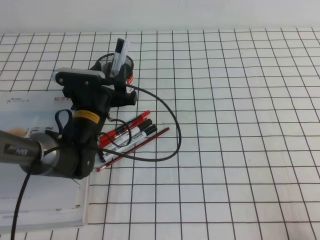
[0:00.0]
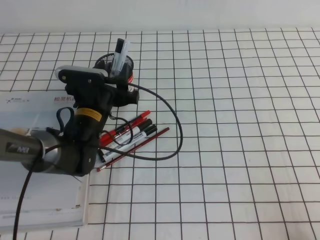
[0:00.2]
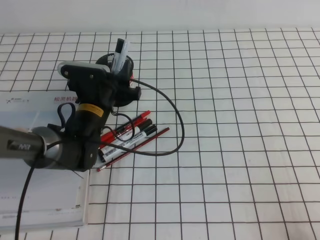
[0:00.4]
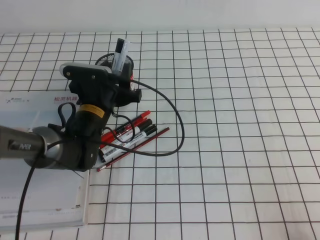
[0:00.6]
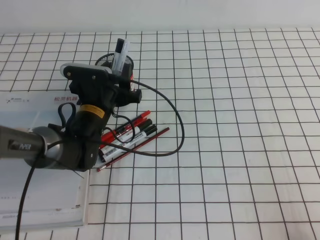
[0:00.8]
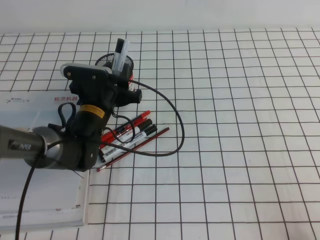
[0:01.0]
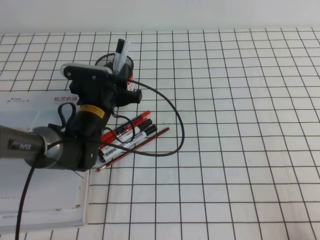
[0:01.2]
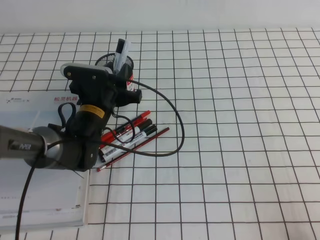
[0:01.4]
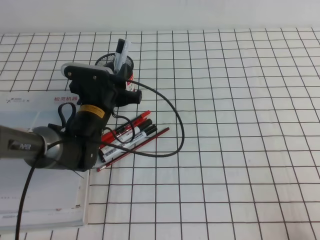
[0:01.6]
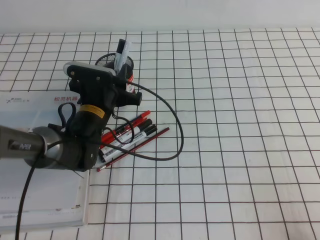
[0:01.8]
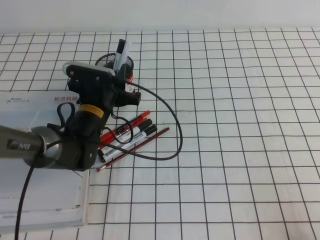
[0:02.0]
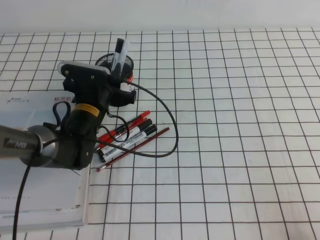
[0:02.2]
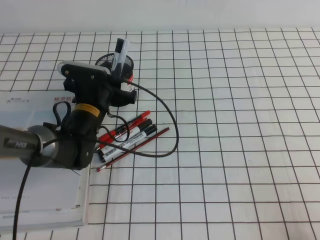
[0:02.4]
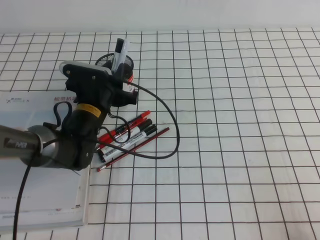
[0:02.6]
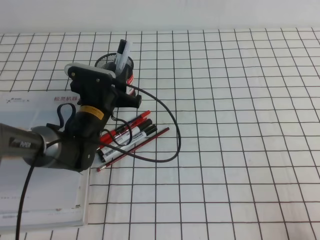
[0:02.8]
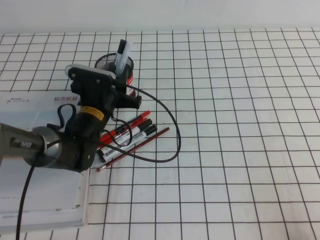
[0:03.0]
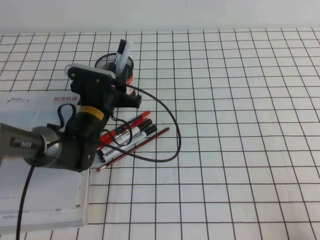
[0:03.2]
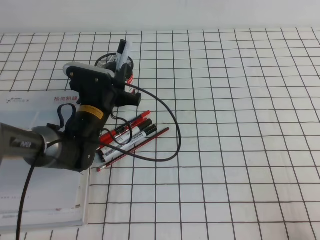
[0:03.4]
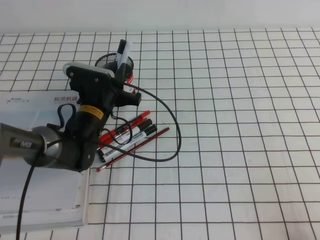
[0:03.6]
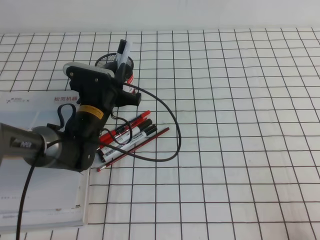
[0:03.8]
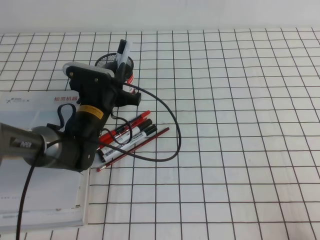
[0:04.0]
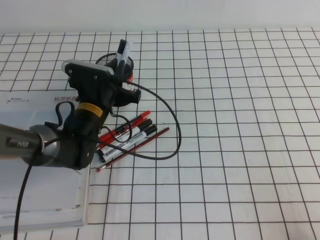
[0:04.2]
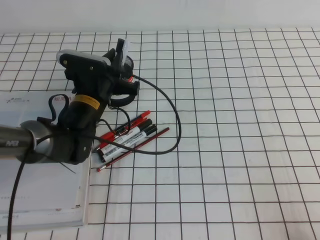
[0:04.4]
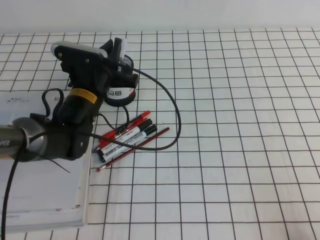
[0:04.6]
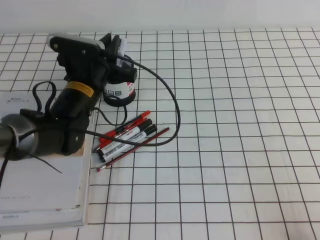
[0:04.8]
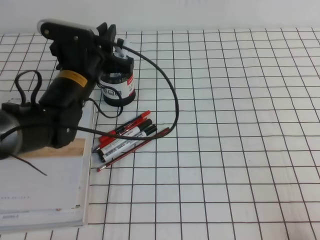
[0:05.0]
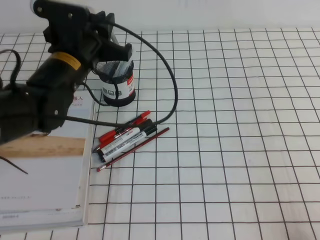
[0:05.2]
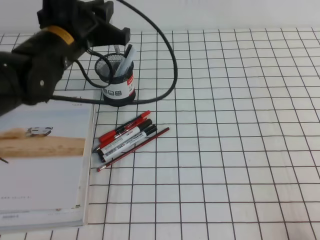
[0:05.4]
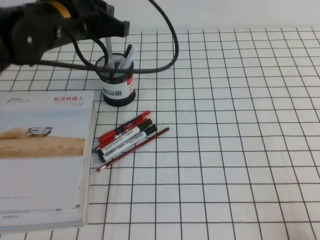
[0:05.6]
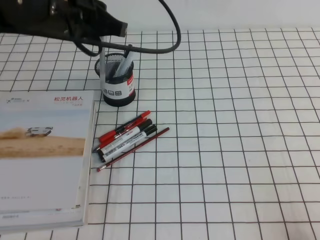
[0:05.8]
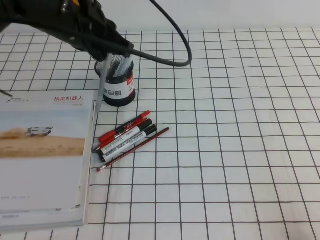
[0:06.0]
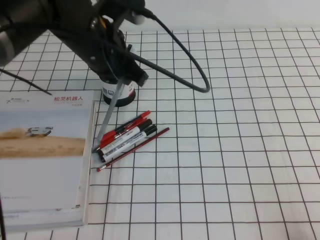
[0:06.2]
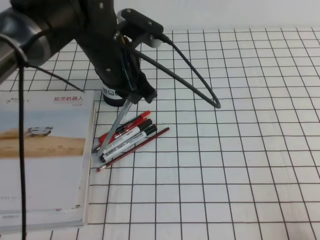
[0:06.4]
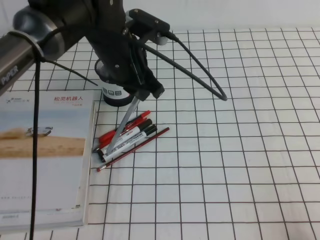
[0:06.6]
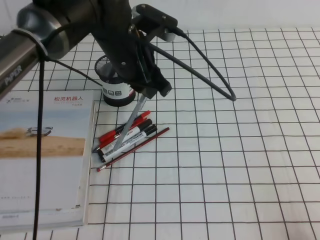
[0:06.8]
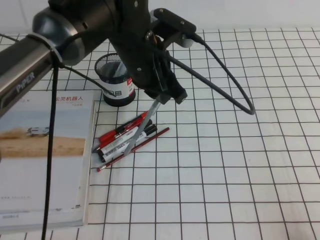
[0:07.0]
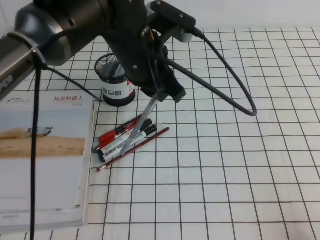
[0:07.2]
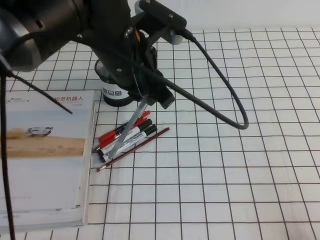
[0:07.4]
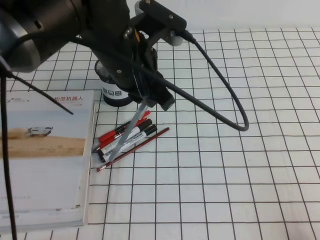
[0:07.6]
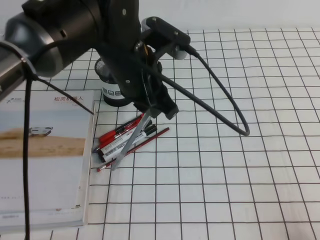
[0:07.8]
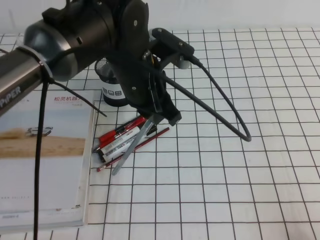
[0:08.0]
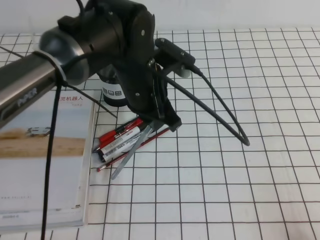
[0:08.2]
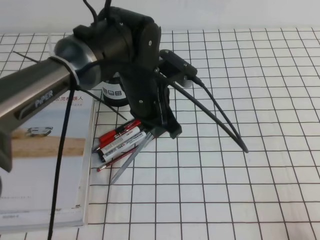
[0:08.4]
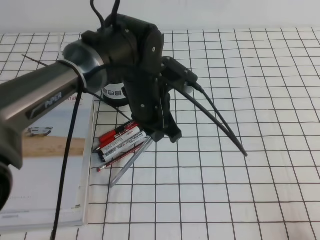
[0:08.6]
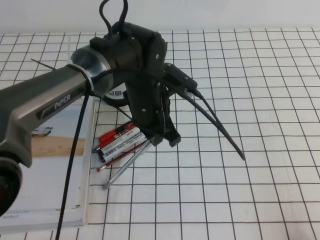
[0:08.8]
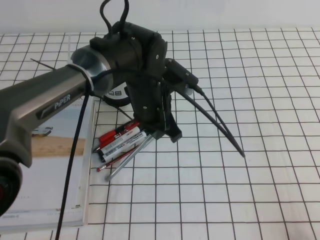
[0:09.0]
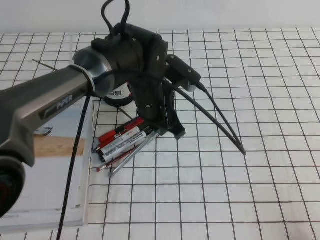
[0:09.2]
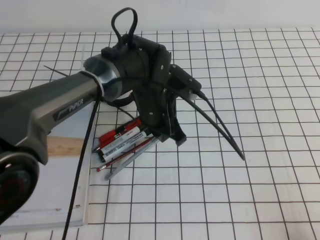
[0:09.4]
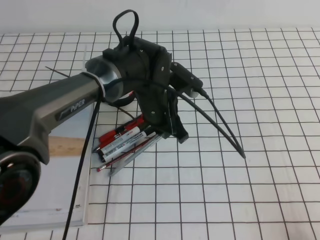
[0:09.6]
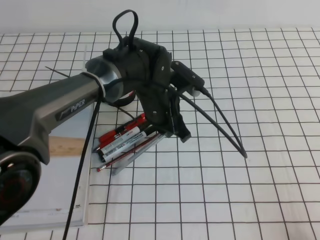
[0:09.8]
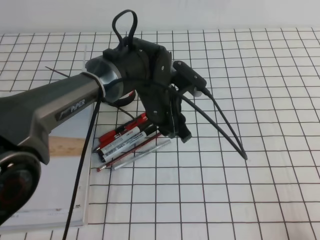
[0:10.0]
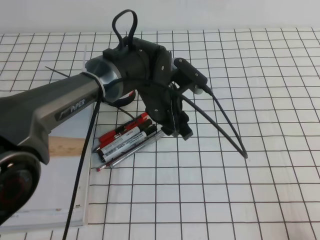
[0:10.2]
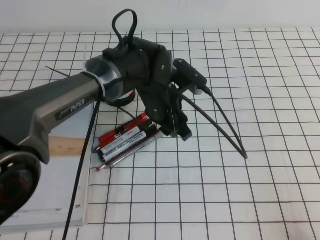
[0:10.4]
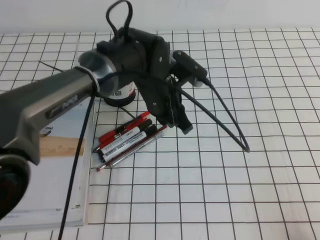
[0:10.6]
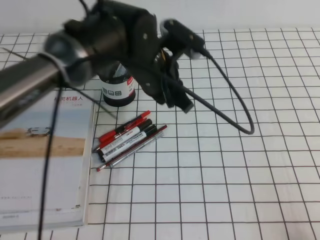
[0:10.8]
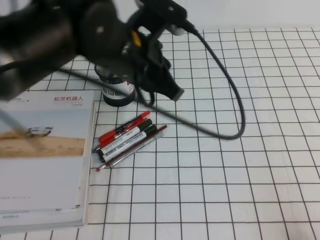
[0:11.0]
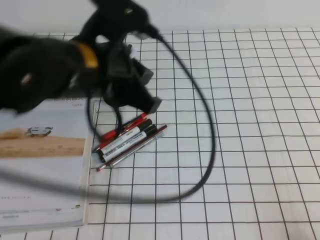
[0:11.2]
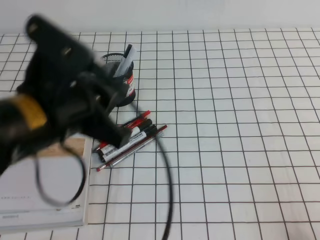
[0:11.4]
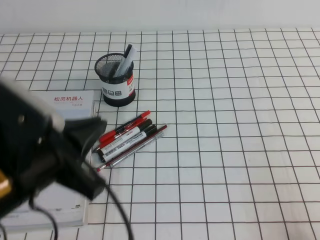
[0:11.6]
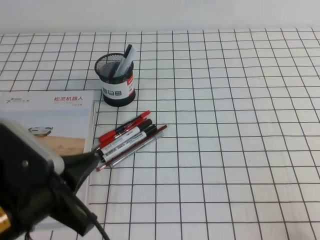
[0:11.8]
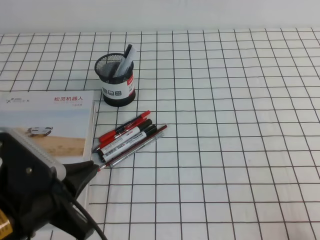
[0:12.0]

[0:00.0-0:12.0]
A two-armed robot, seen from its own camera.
0:00.0 to 0:01.6: The left gripper closes up.
0:01.6 to 0:03.0: Both grippers stay about where they are.
0:03.0 to 0:04.4: The grippers stay close to where they were, moving slightly.
0:04.4 to 0:06.0: The left gripper shifts about 20 cm upward.
0:06.0 to 0:07.6: The left gripper is displaced to the right by about 5 cm.
0:07.6 to 0:09.0: The left gripper moves downward, roughly 10 cm.
0:09.0 to 0:10.4: The left gripper opens its fingers.
0:10.4 to 0:12.0: The left gripper travels backward and to the left by some 30 cm, and closes.

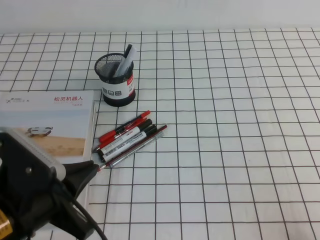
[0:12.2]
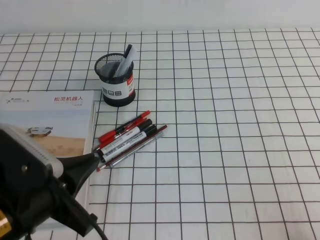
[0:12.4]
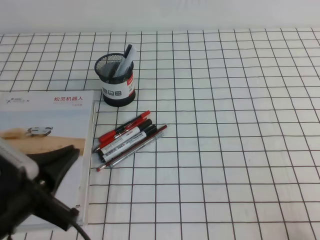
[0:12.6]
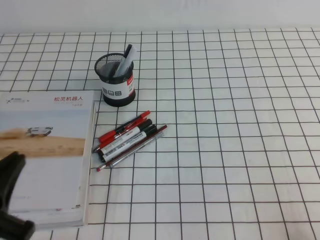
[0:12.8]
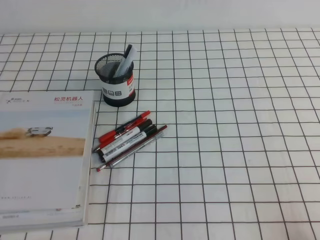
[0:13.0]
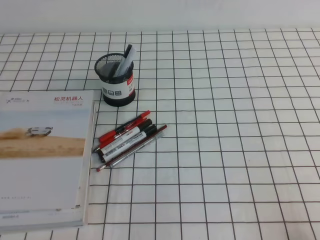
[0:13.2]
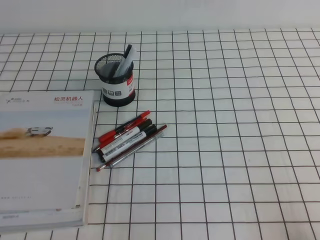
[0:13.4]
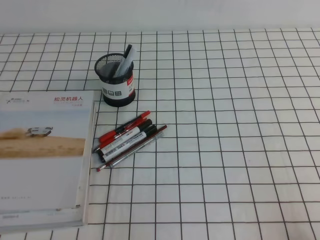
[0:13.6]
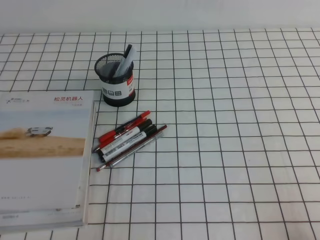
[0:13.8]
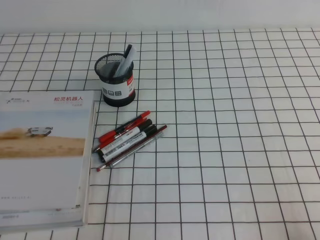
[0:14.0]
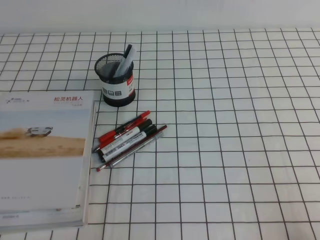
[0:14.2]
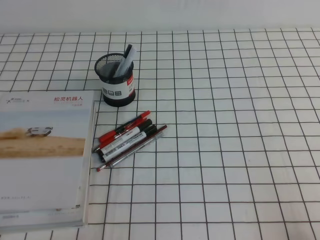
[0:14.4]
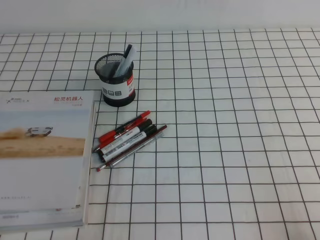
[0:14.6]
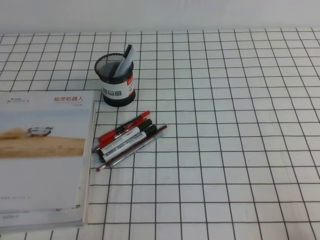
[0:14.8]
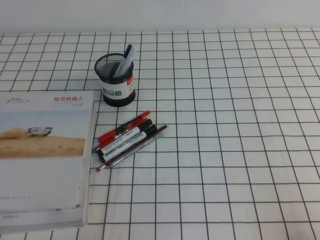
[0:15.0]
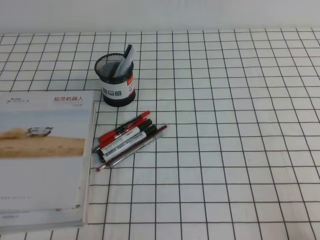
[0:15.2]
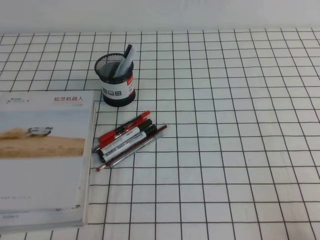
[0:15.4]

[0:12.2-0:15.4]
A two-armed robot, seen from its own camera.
Step, 0:12.2 to 0:15.4: Pick up the pen from the pen holder.
0:12.2 to 0:13.8: The left gripper goes approximately 15 cm to the left, downward and backward.

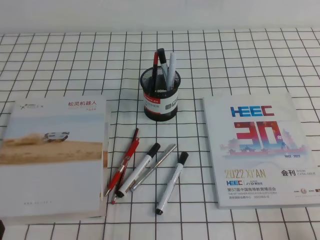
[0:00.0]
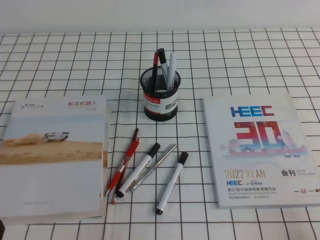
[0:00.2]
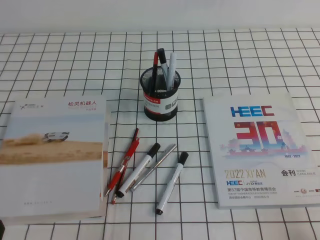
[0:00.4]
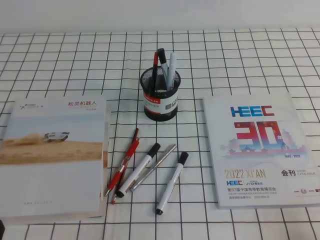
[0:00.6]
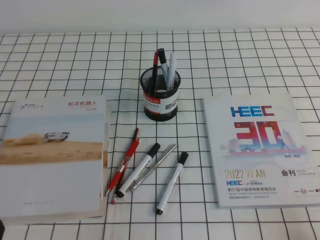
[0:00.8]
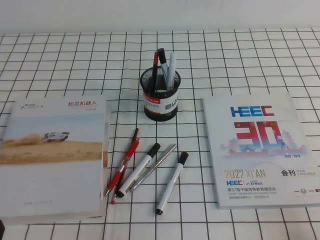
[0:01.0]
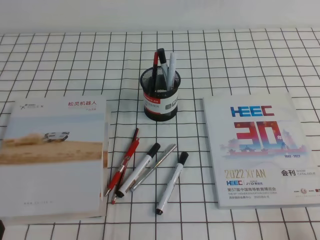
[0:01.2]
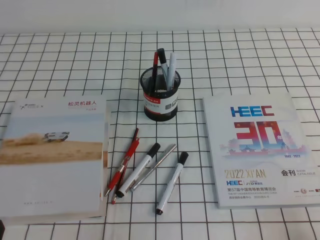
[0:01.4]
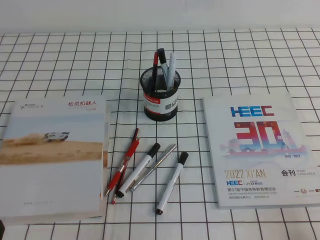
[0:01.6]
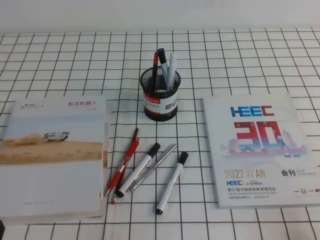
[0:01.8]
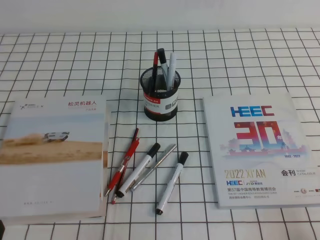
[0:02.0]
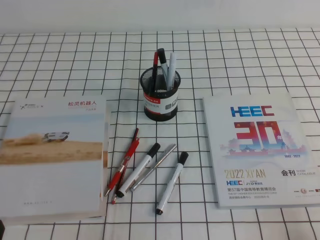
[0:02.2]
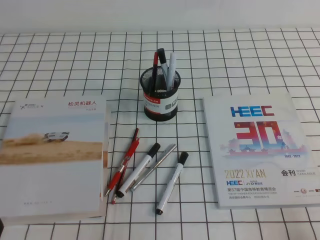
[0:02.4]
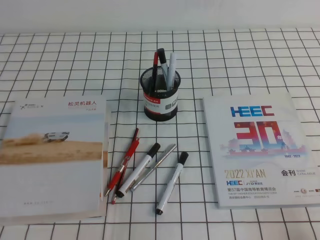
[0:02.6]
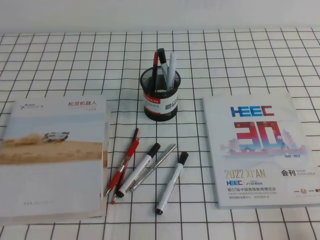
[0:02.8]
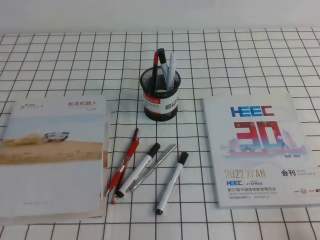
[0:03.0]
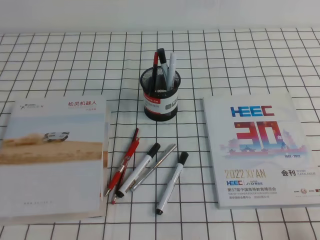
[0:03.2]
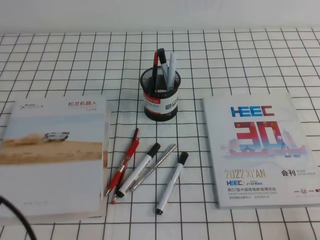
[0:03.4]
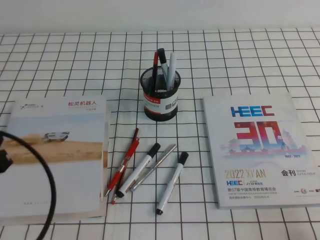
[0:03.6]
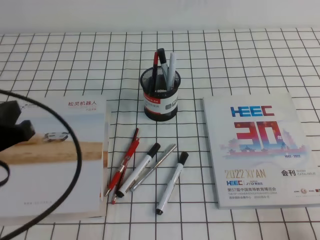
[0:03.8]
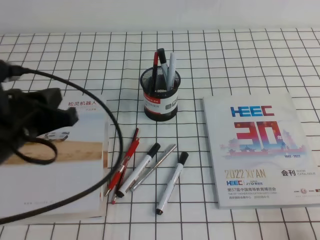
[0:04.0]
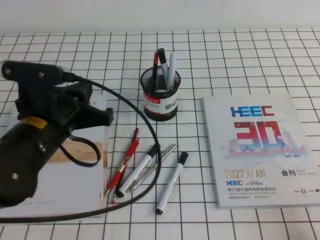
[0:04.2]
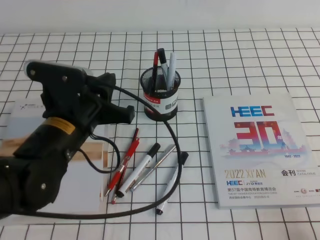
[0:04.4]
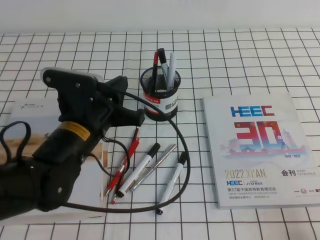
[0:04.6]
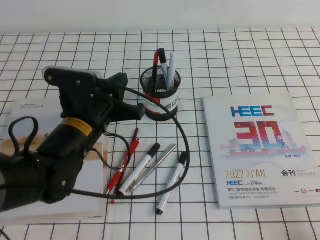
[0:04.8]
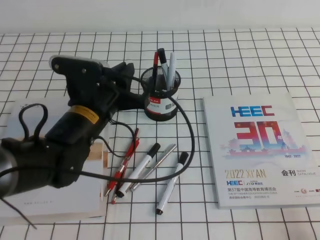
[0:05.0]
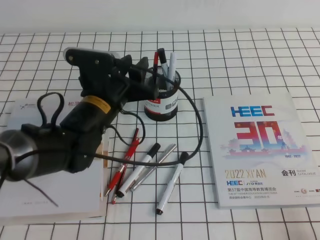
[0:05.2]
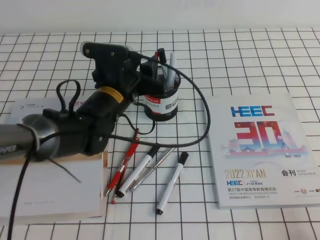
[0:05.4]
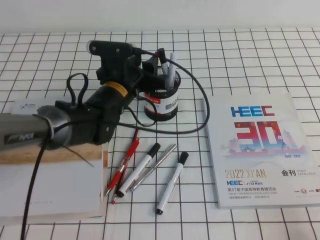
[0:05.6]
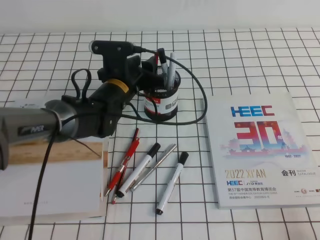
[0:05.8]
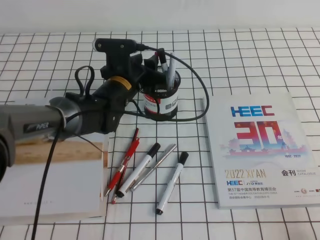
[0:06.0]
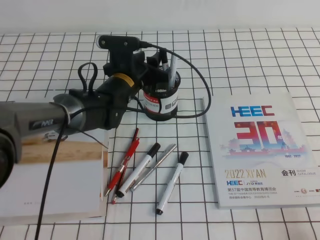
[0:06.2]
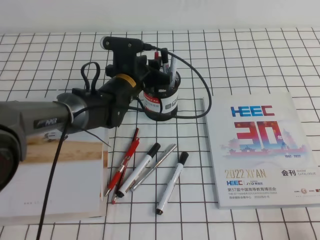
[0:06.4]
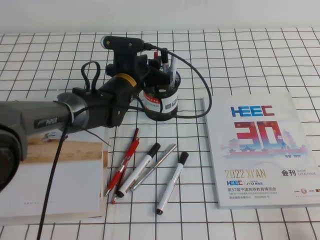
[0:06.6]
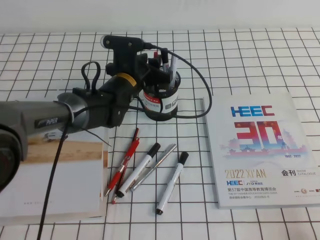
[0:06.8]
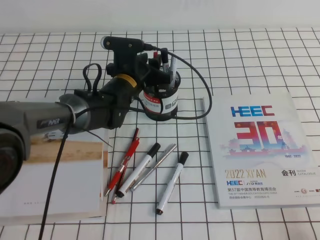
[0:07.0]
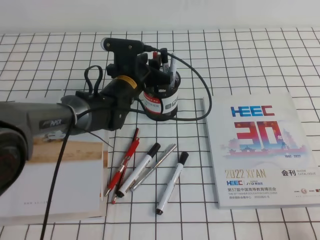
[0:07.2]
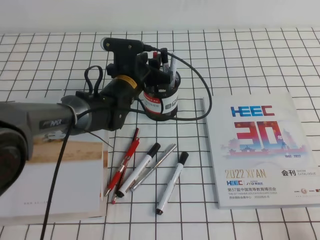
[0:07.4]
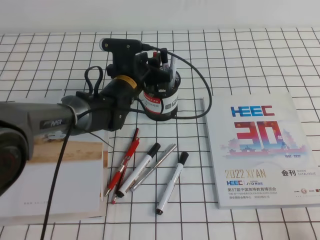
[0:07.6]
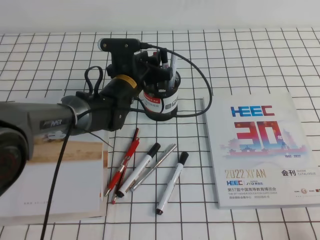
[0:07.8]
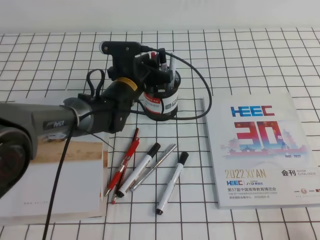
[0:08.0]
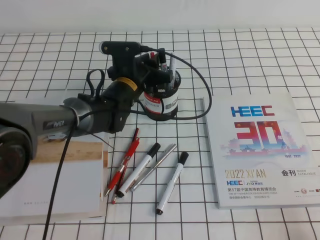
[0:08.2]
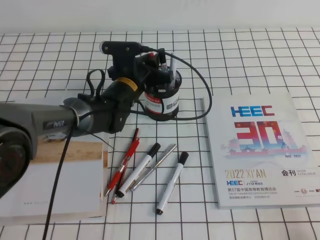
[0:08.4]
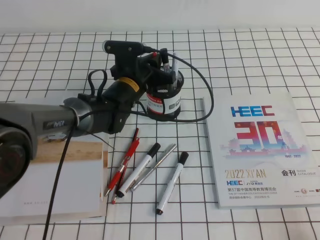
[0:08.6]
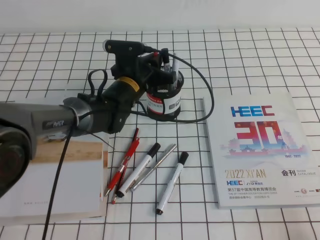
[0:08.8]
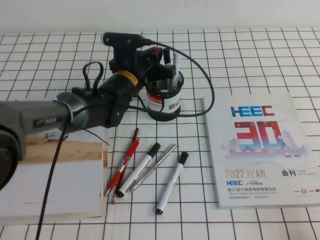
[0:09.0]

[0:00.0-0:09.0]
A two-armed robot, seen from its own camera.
0:00.0 to 0:01.6: The two grippers keep their place.
0:03.0 to 0:04.4: The left gripper is displaced forward and to the right by approximately 25 cm.
0:04.4 to 0:06.0: The left gripper moves forward, to the right and downward, roughly 20 cm, and opens up.
0:06.0 to 0:07.6: The grippers move only a little.
0:07.6 to 0:09.0: The left gripper closes.
